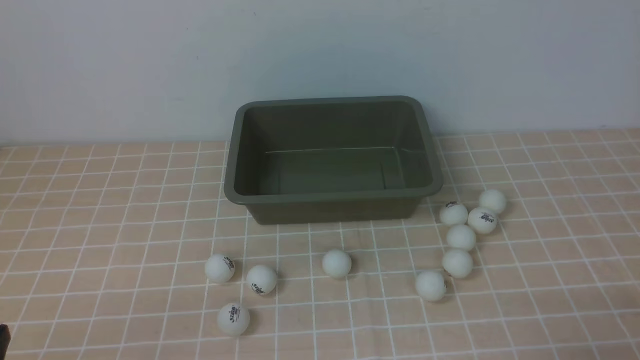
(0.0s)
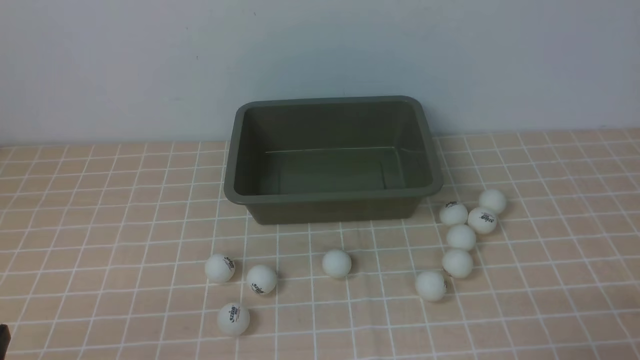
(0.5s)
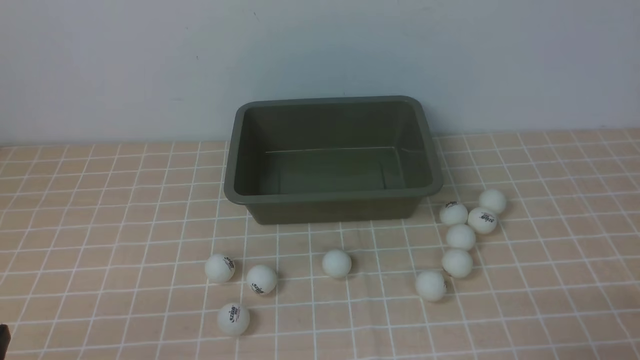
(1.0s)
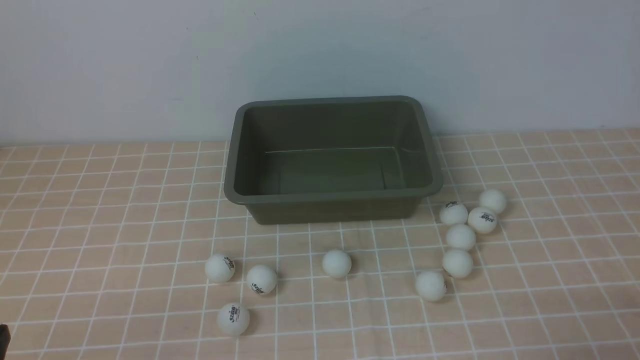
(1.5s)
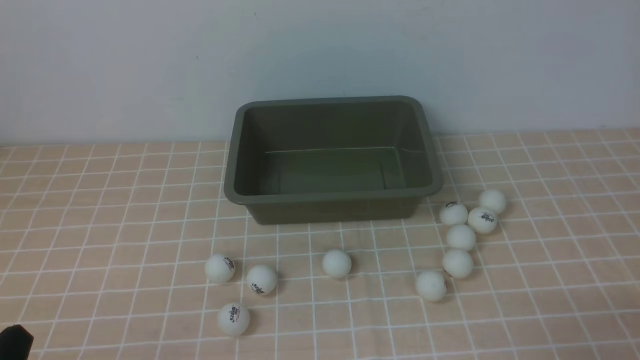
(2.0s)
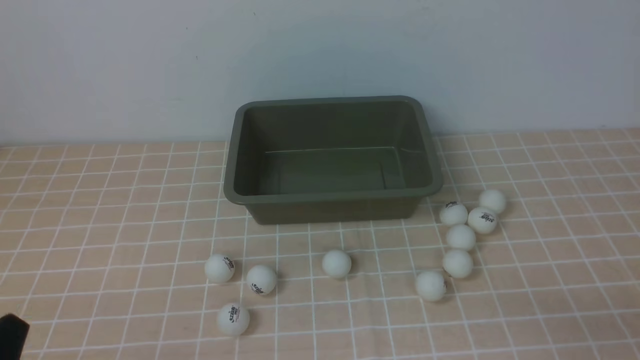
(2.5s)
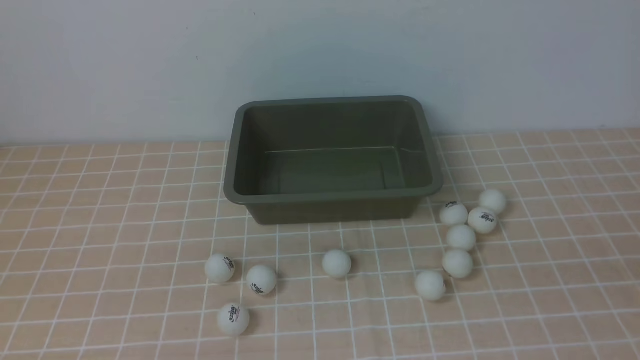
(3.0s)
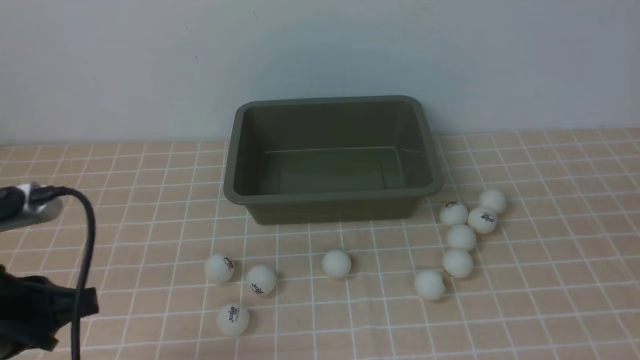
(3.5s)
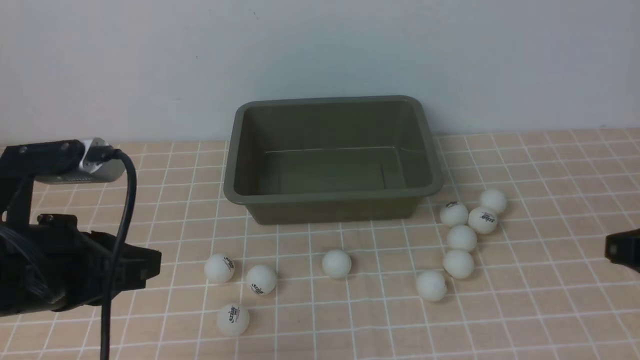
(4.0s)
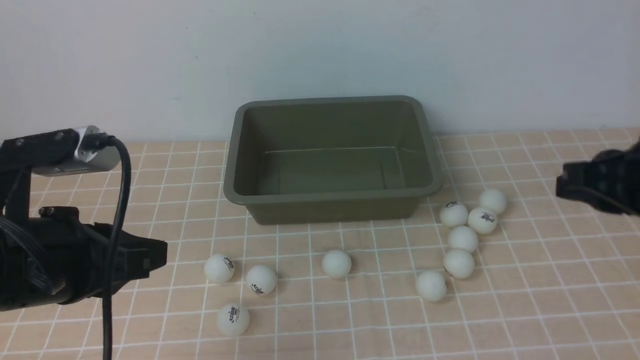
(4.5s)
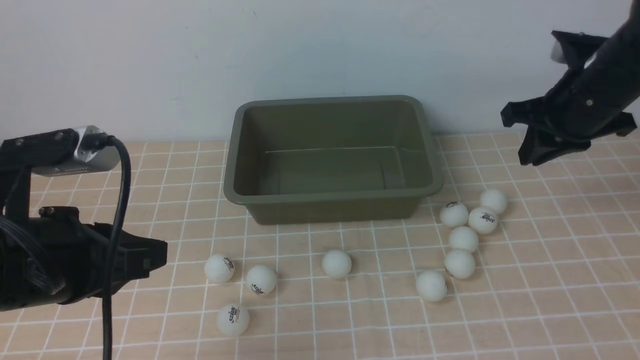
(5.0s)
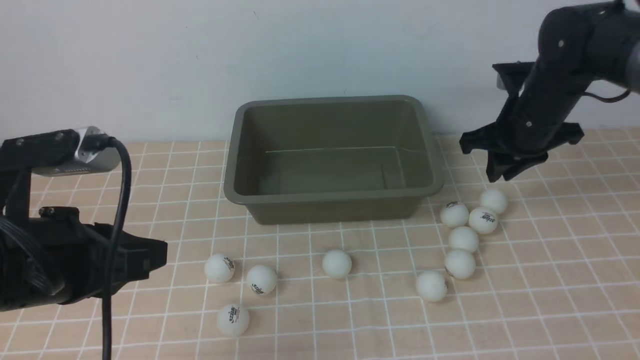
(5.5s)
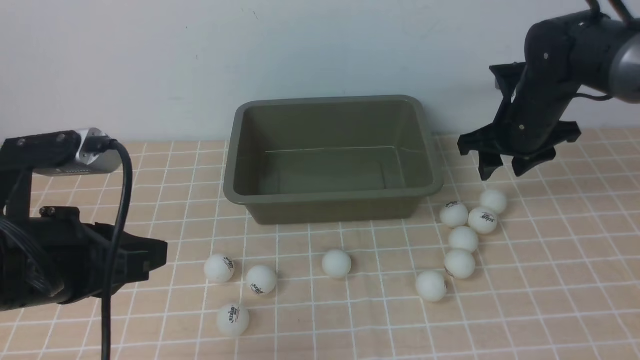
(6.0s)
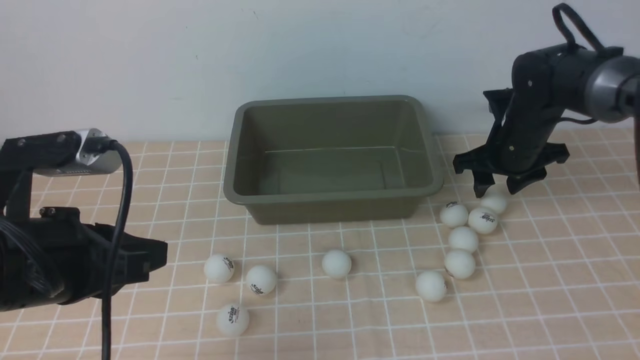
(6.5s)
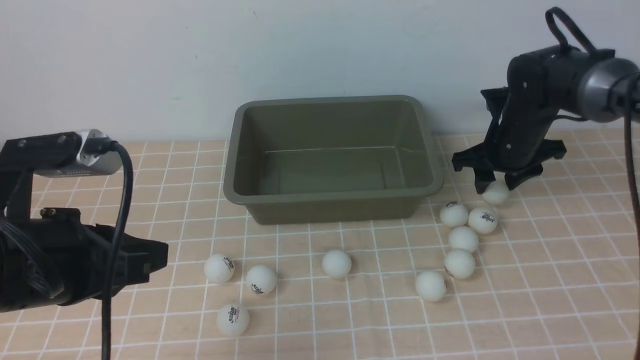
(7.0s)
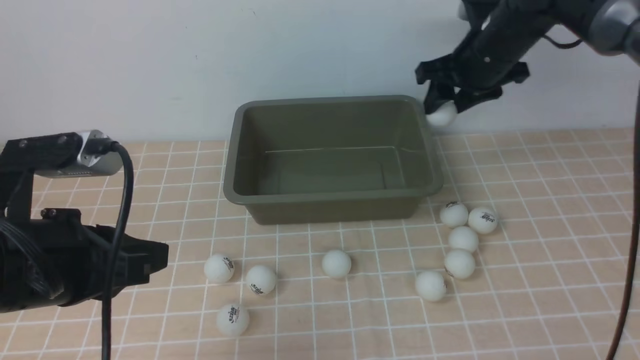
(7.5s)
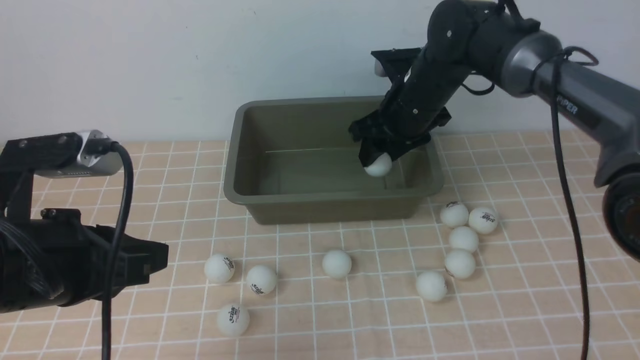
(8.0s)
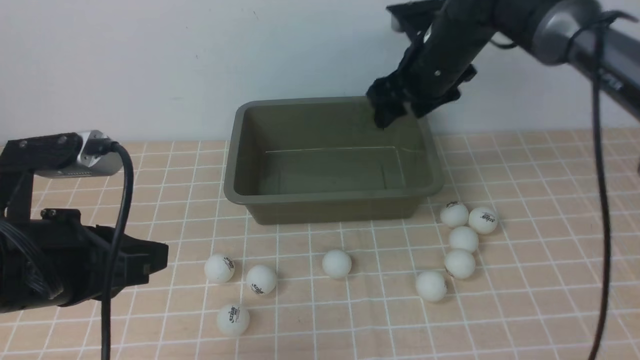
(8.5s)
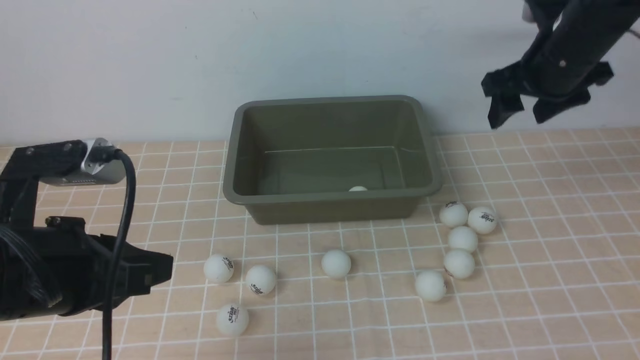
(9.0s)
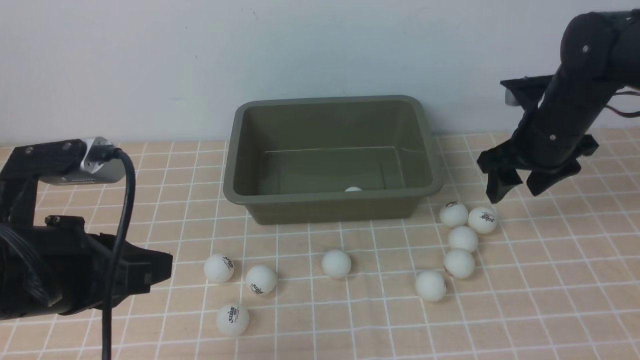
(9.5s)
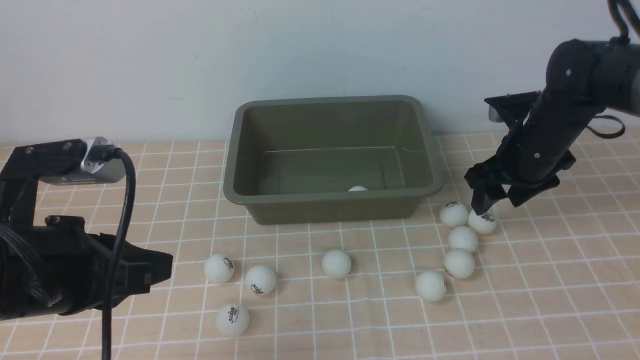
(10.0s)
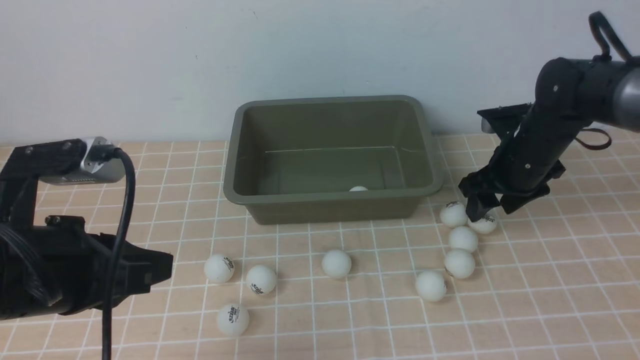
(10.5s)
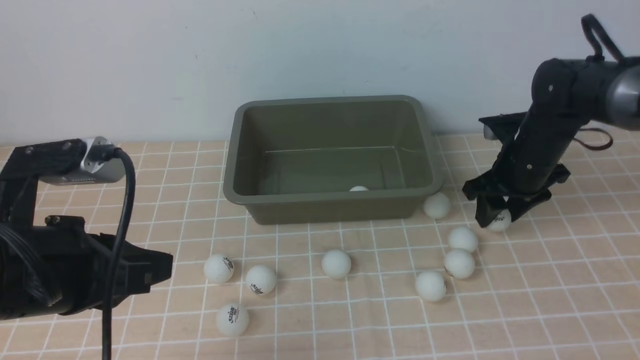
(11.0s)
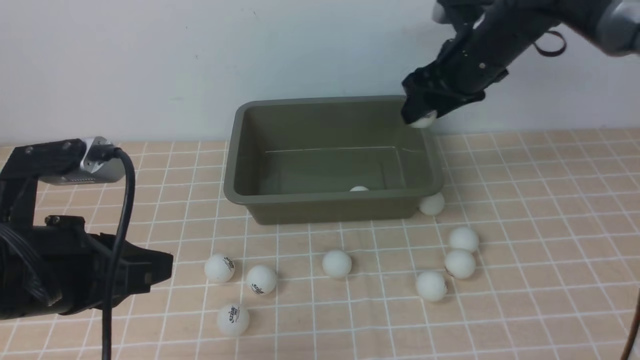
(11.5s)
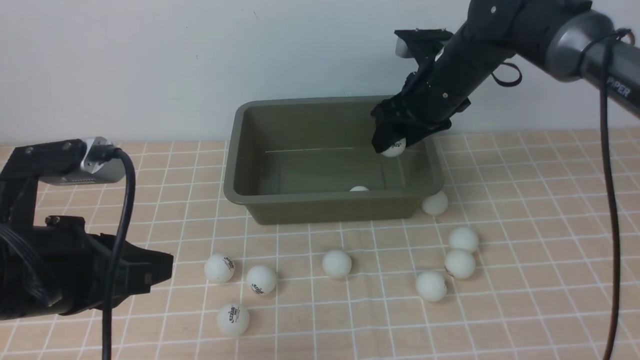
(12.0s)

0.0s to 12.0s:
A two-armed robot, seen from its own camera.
Step, 0.0s to 7.0s: use the right arm to clamp the table tennis ball closest to it.
Step, 7.5s to 8.5s: use the right arm to put the table tennis ball into the box.
Step, 9.0s to 11.0s: use the right arm to clamp the table tennis ball closest to it.
2.0s to 4.0s: The right gripper moves upward and forward, about 15 cm. The left gripper travels forward and upward by about 15 cm.
4.0s to 6.0s: The right gripper shifts some 25 cm forward, and opens up.
6.0s to 8.0s: The right gripper is displaced to the left by about 10 cm.
8.0s to 10.0s: The right gripper travels to the right by about 10 cm.
10.0s to 12.0s: The right gripper heads to the left and upward, covering about 10 cm.

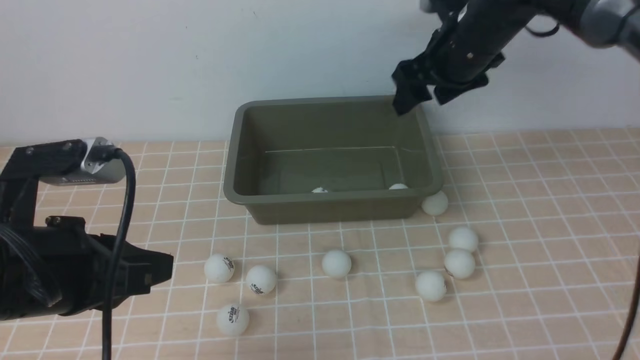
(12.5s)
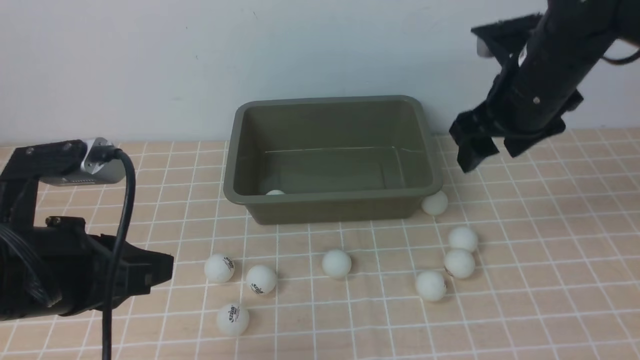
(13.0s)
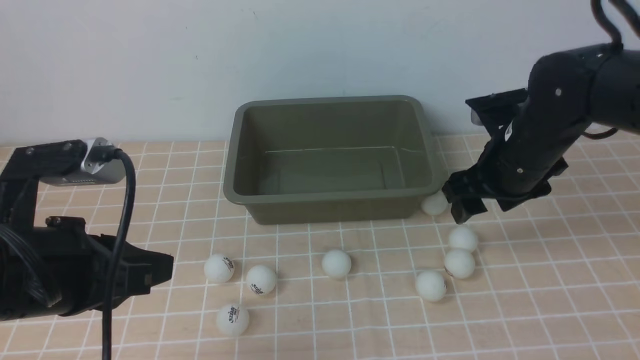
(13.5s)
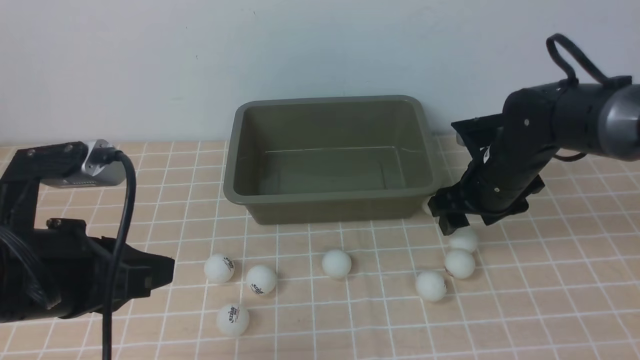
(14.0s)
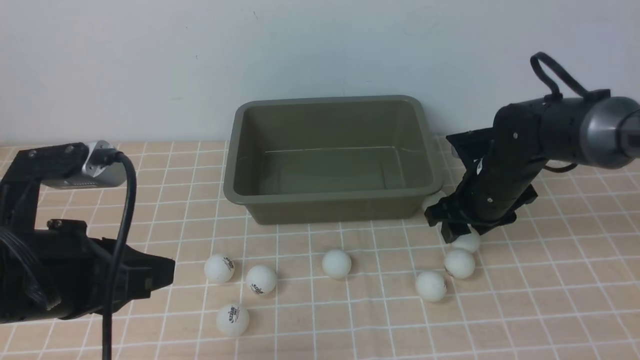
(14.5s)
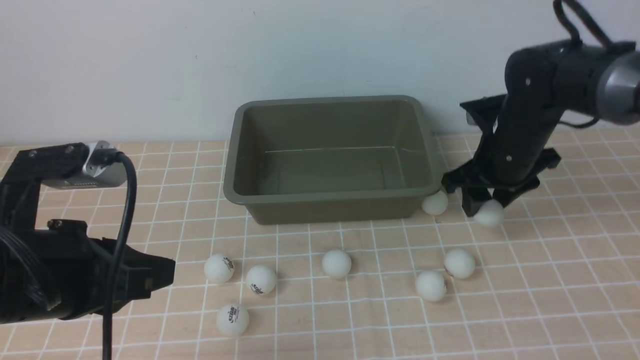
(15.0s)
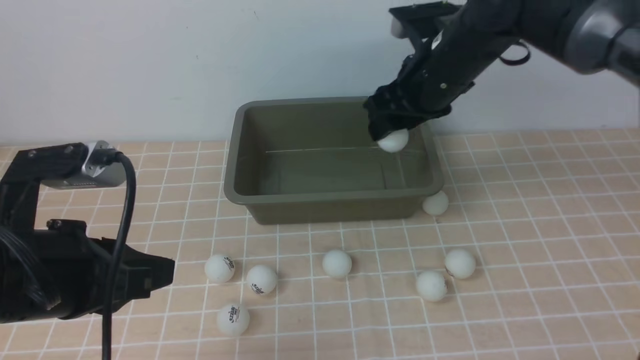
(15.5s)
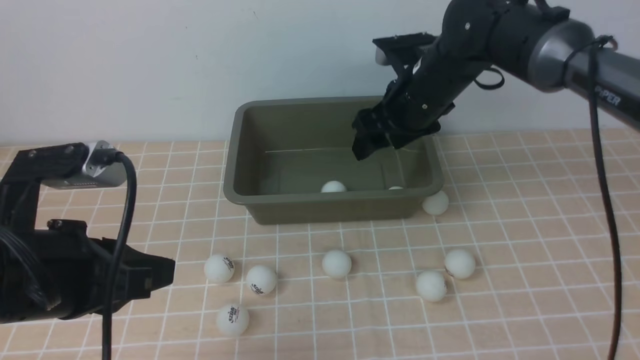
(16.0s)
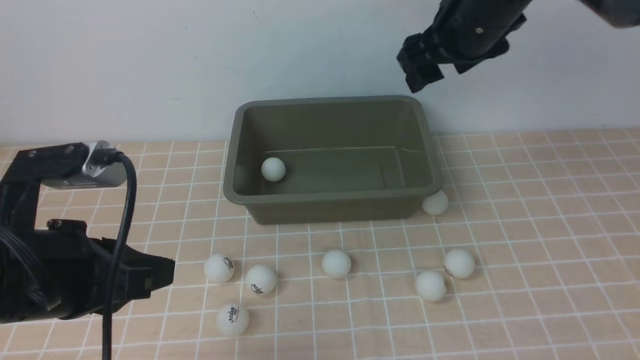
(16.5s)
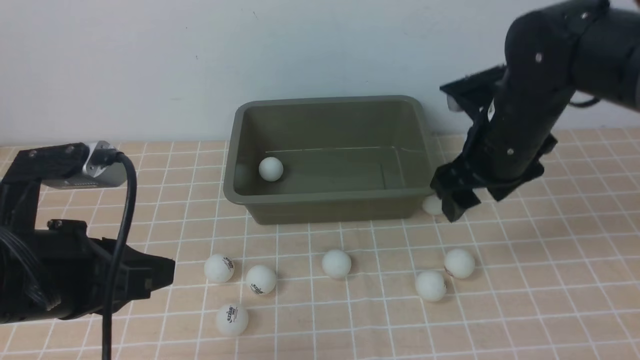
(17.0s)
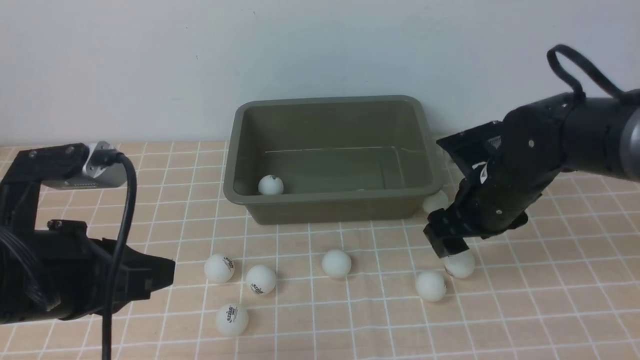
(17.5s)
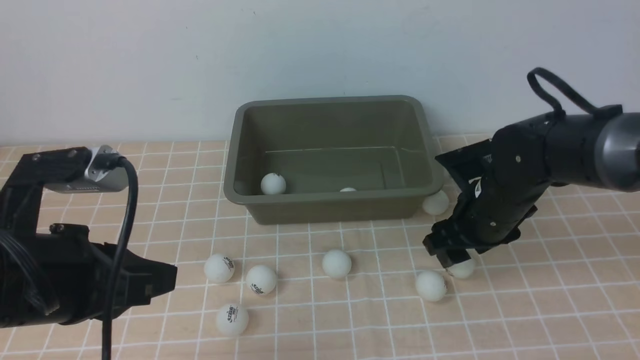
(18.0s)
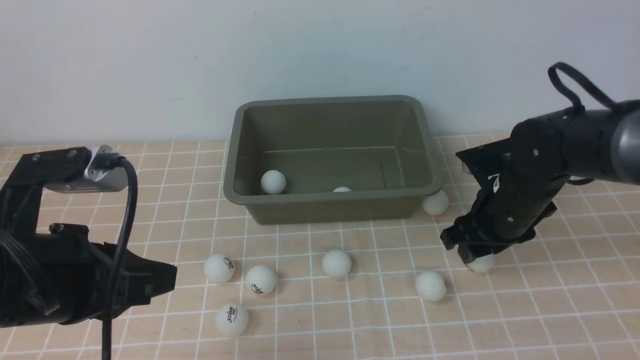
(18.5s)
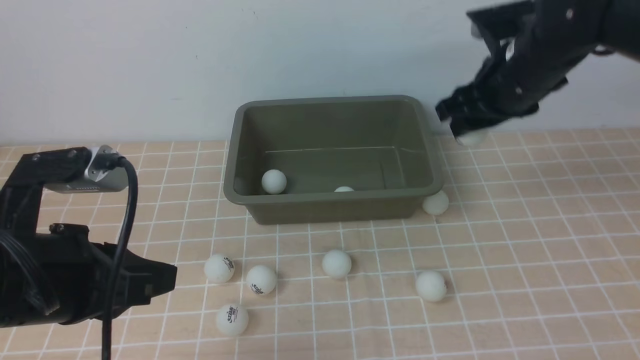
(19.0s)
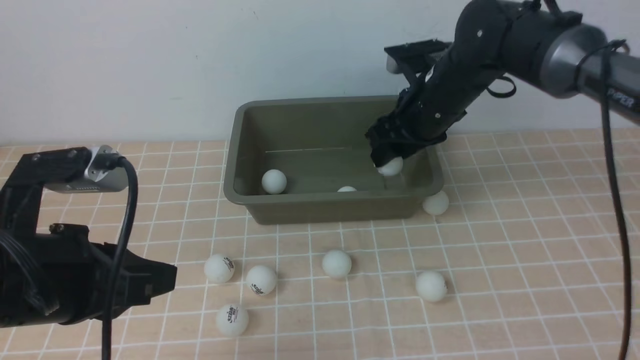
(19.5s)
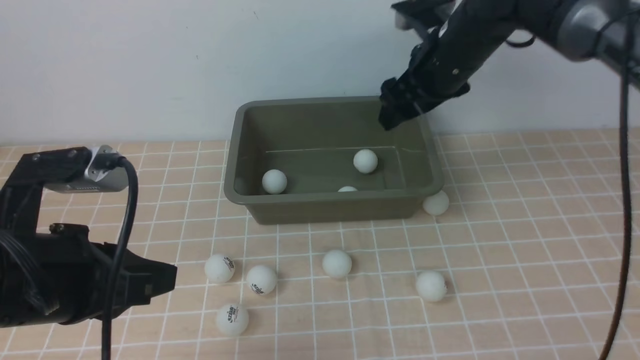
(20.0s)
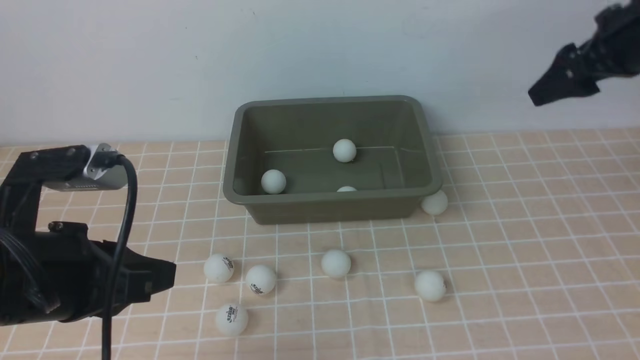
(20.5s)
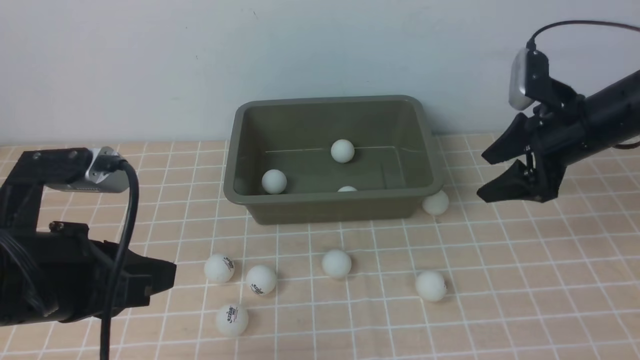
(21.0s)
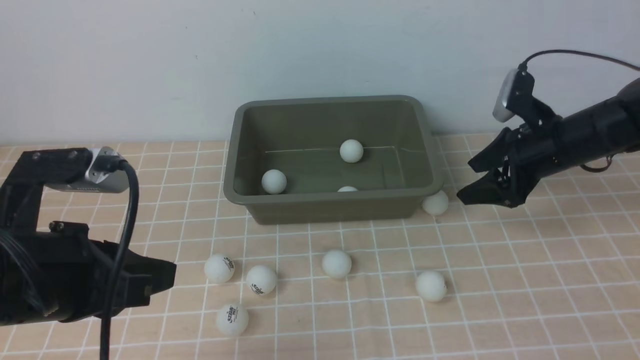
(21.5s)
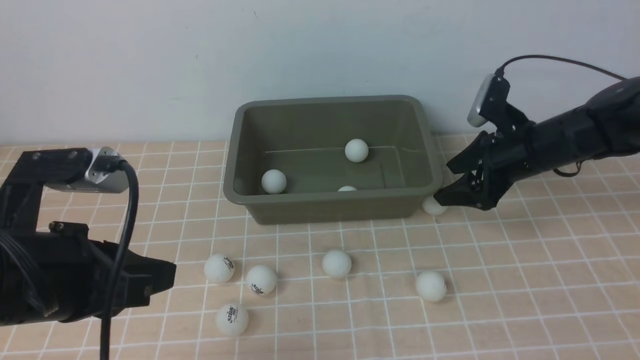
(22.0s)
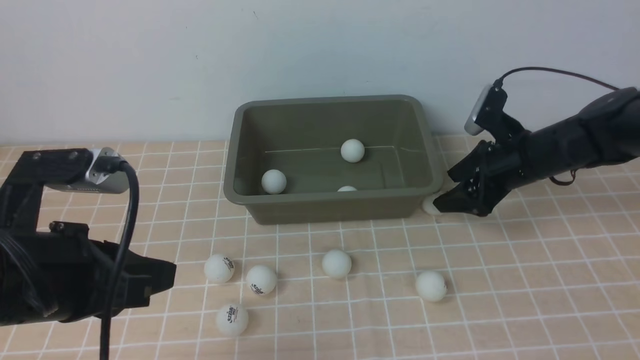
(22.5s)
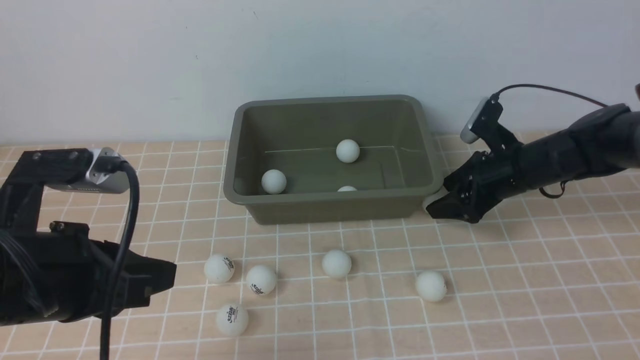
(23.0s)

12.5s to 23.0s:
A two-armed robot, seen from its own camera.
Step, 12.5s to 15.0s: use the right arm to clamp the table tennis ball closest to it.
Step, 15.5s to 16.0s: use the right arm to put the table tennis ball into the box.
Step, 16.5s to 18.5s: use the right arm to clamp the table tennis ball closest to it.
Step, 19.0s to 19.5s: use the right arm to put the table tennis ball into the box.
12.5s to 14.5s: The right gripper heads downward and backward, covering roughly 15 cm.
14.5s to 16.5s: The right gripper heads upward, covering approximately 20 cm.
16.5s to 19.0s: The right gripper shifts approximately 10 cm downward, and closes.
19.0s to 21.0s: The right gripper goes about 10 cm to the right, and opens up.
21.0s to 23.0s: The right gripper heads downward, covering approximately 10 cm.
